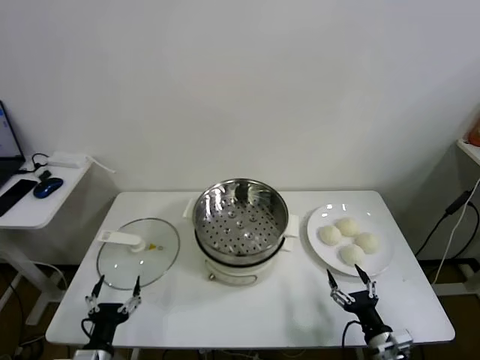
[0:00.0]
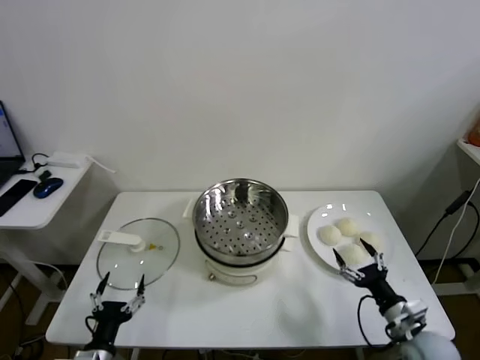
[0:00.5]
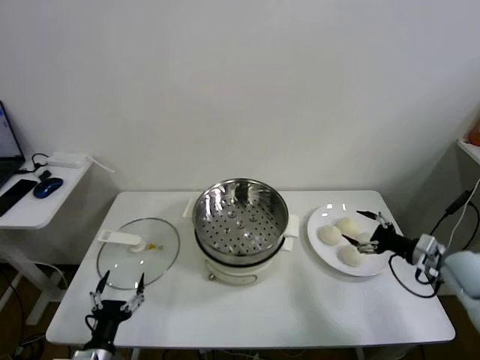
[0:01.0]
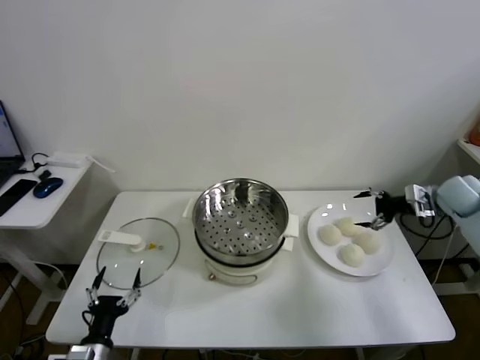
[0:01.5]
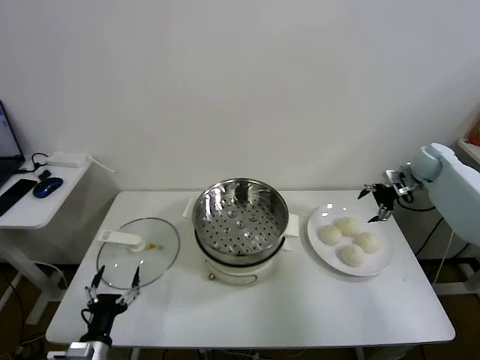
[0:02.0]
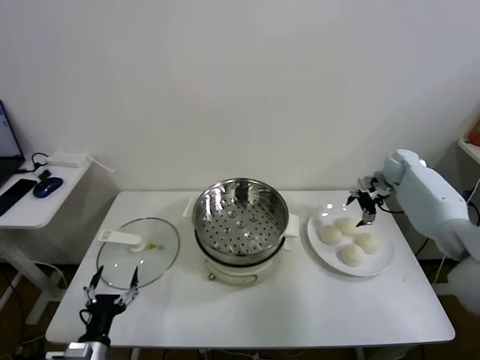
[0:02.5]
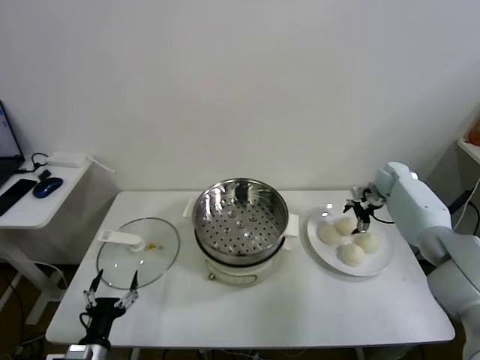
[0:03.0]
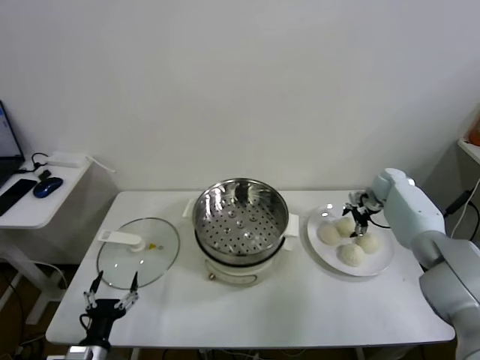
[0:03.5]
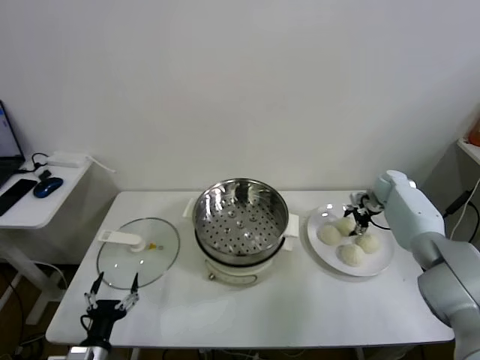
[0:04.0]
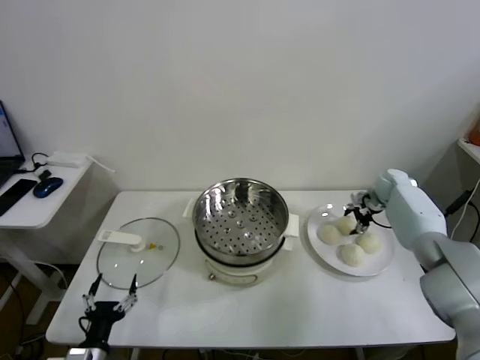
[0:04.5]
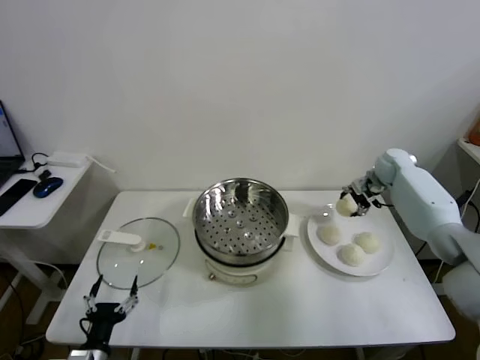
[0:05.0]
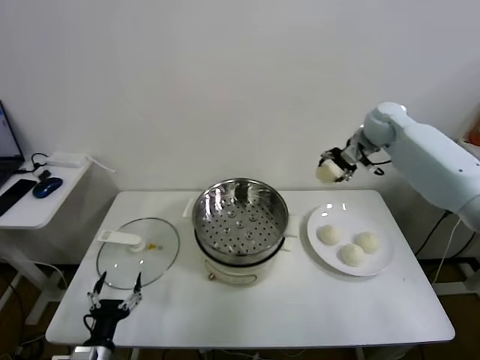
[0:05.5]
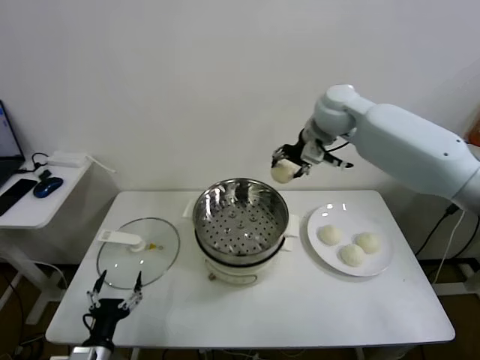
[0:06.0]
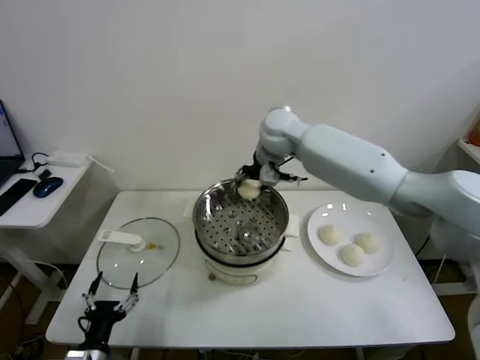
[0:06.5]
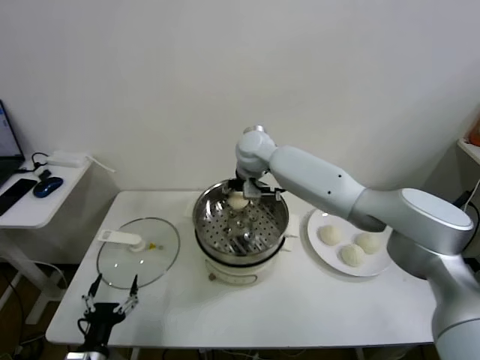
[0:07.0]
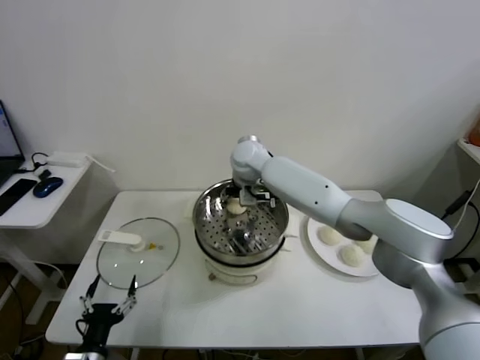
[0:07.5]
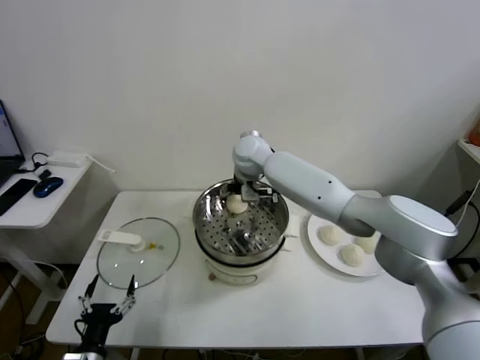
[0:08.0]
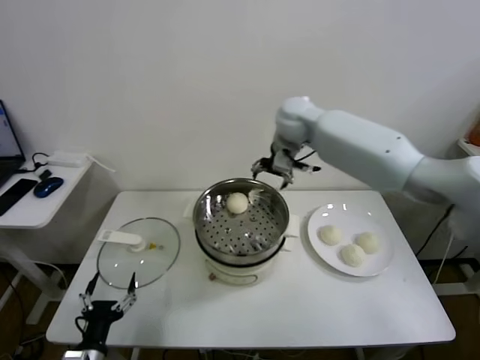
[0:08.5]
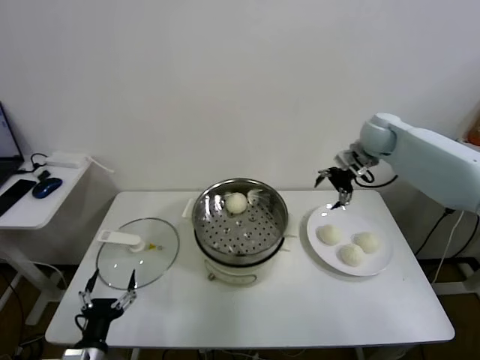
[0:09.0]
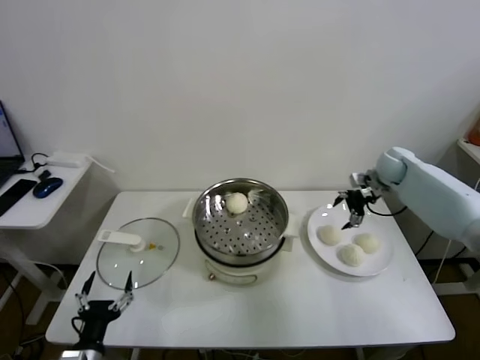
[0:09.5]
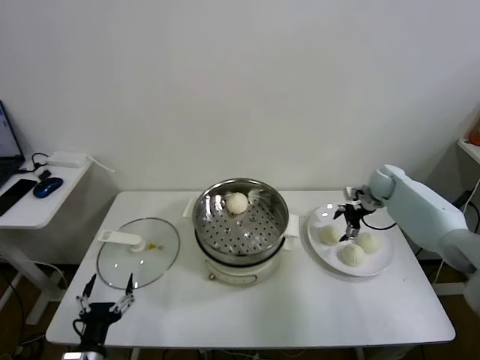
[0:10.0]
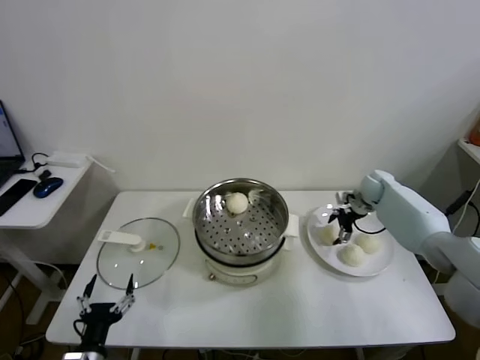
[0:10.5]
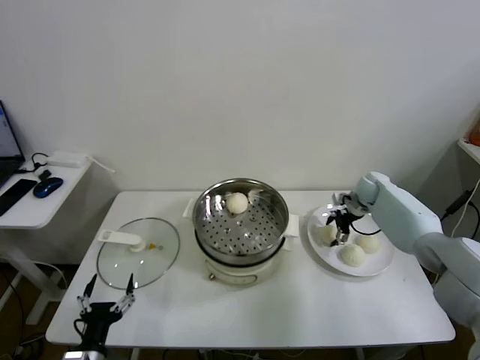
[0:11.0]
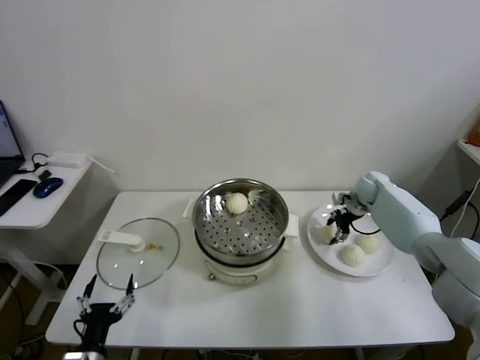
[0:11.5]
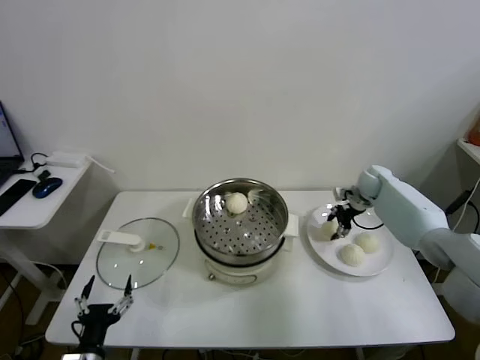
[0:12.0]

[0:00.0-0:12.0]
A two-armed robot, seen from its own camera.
Task of the whole recording: take steamed baozi put them in steamer.
Step, 0:00.0 to 0:04.0: Grasp the baozi in the plate with right gripper.
Step, 0:04.5 to 0:08.0: Place the baozi on the steamer with right gripper.
Step, 0:08.5 to 0:11.0: Grasp the baozi in the plate with right gripper.
0:02.0 to 0:04.0: The right gripper is displaced downward by some 10 cm, and closes.
0:04.0 to 0:06.0: The right gripper moves upward and to the left, about 40 cm.
0:06.0 to 0:08.0: The right gripper goes approximately 20 cm to the left and downward, and opens up.
0:08.0 to 0:10.0: The right gripper heads to the right, covering approximately 40 cm.
0:10.0 to 0:12.0: The right gripper closes its fingers.

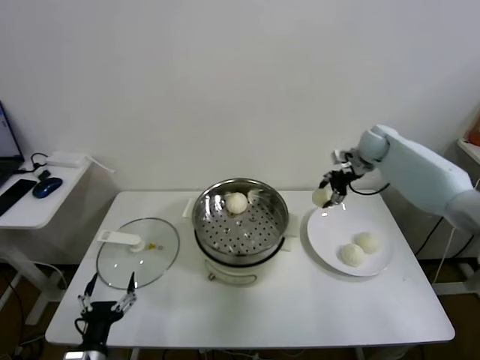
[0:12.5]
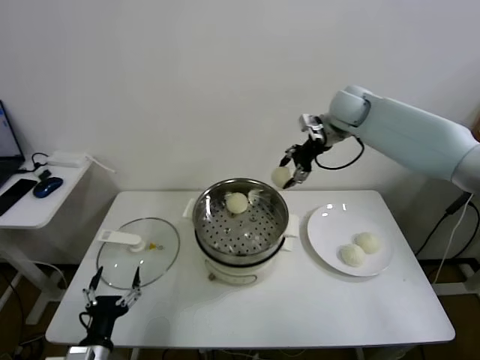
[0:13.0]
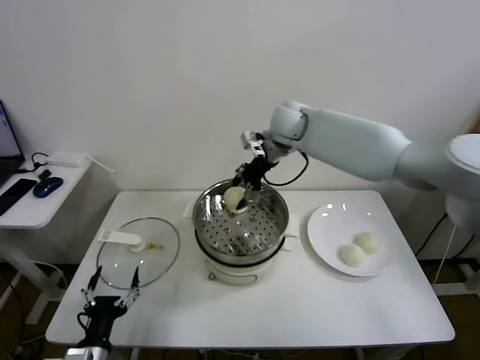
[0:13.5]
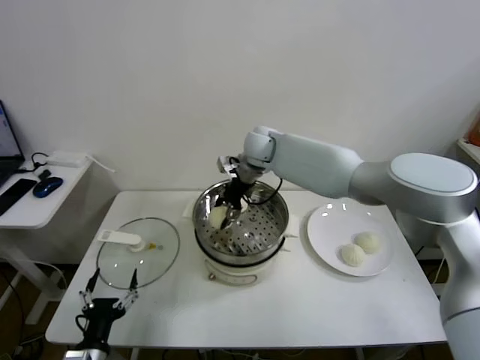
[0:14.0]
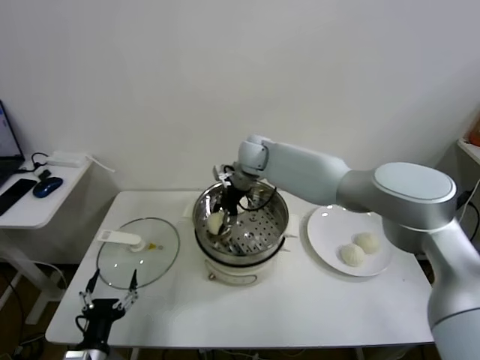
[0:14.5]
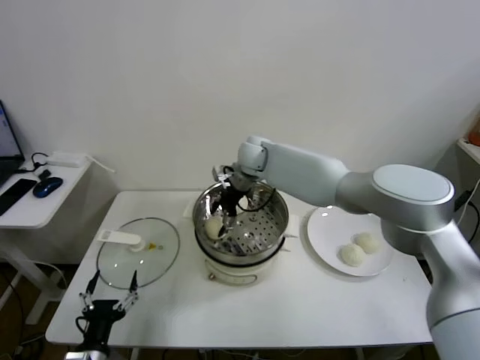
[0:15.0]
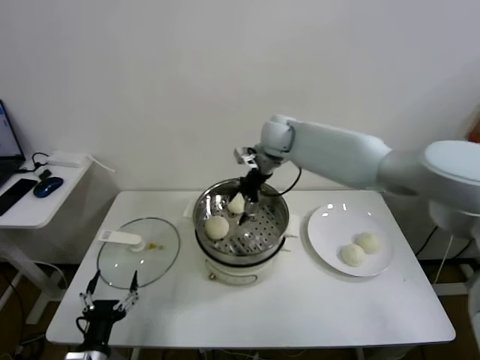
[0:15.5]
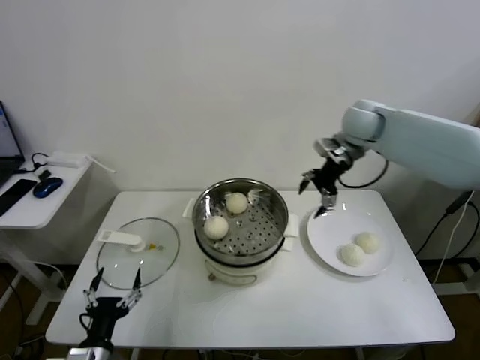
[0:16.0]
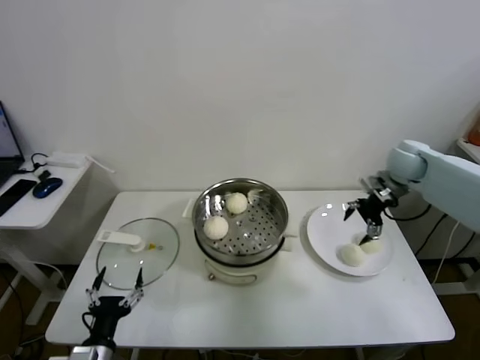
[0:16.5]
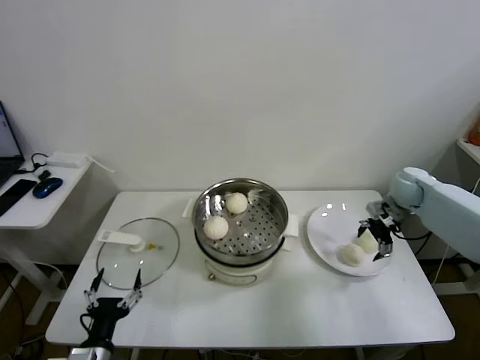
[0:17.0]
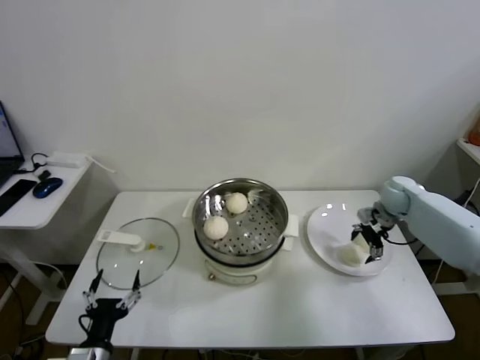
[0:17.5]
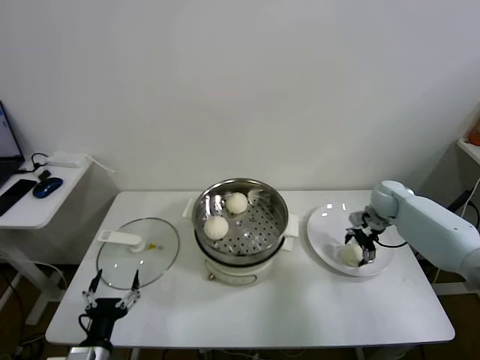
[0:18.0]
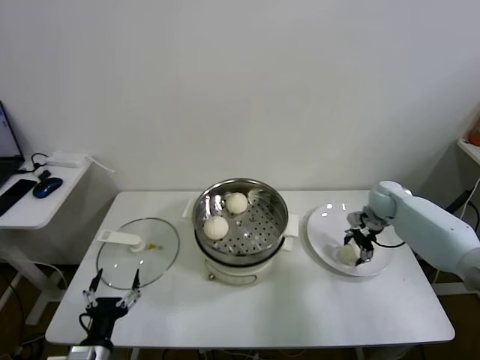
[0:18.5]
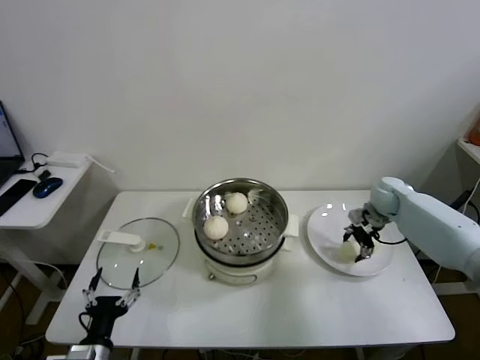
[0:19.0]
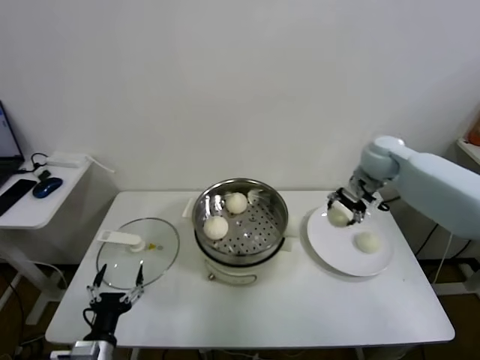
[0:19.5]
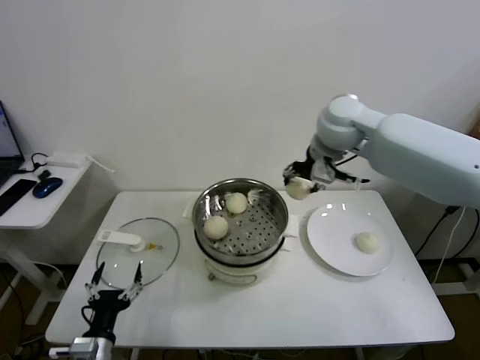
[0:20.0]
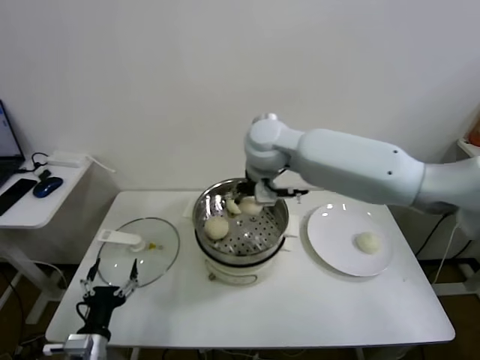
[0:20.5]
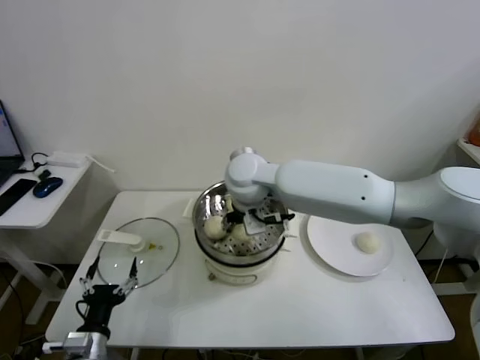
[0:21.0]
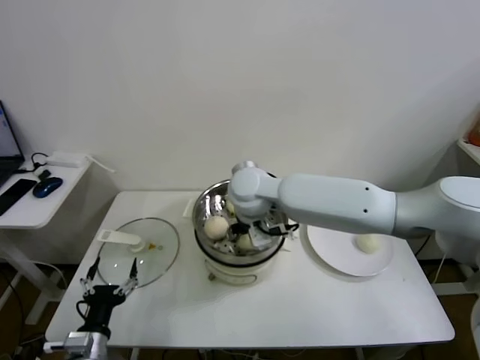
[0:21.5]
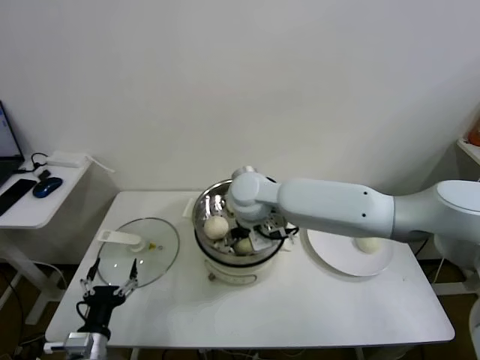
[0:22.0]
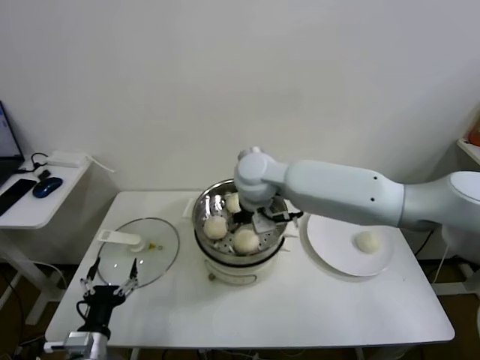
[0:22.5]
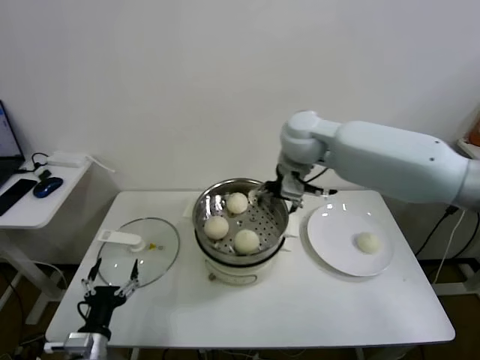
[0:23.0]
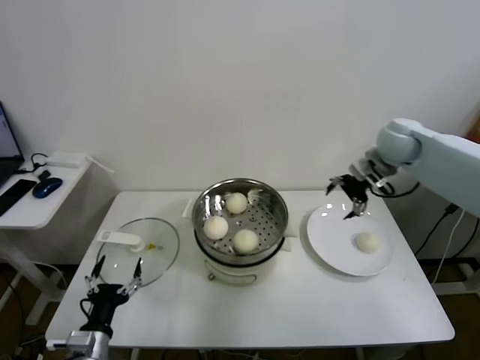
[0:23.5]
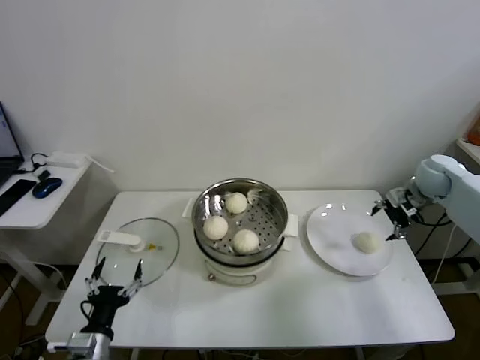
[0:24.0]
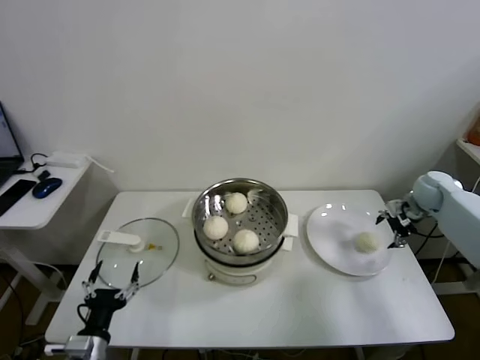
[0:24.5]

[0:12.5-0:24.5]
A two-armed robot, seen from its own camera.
Task of the whole recording: take steamed baozi put them in steamer.
Step, 0:12.5 to 0:15.0: Place the baozi on the steamer with right gripper.
Step, 0:15.5 to 0:18.5: Grasp the baozi in the plate with right gripper.
Step, 0:19.0 to 0:22.0: Place the baozi on the steamer with right gripper.
0:12.5 to 0:14.5: The right gripper goes some 30 cm to the left.
0:14.5 to 0:16.5: The right gripper travels to the right by some 35 cm, and opens up.
0:16.5 to 0:18.5: The right gripper travels downward by some 15 cm, and closes its fingers.
0:18.5 to 0:20.5: The right gripper shifts roughly 40 cm to the left and upward.
0:20.5 to 0:22.5: The right gripper shifts approximately 5 cm downward, and opens up.
0:22.5 to 0:24.5: The right gripper is displaced to the right by some 50 cm.

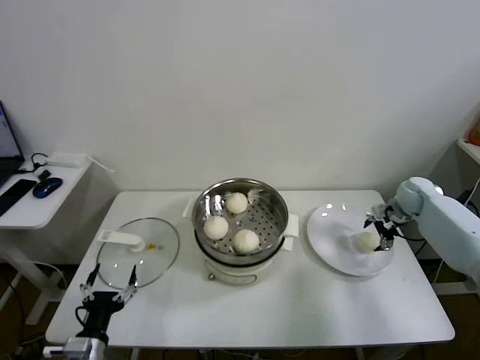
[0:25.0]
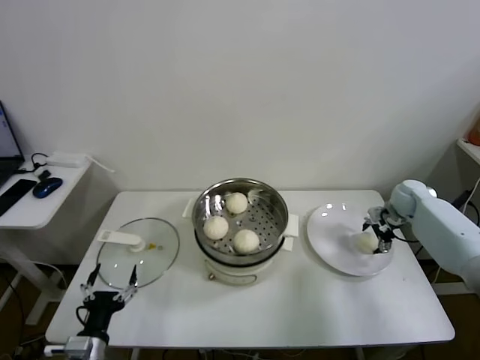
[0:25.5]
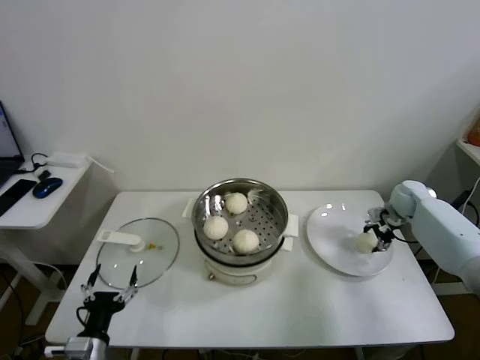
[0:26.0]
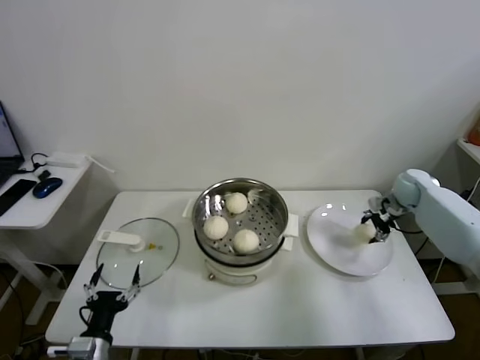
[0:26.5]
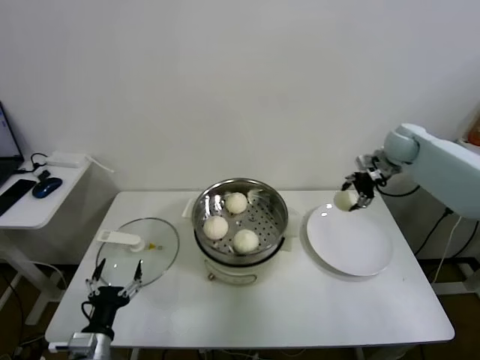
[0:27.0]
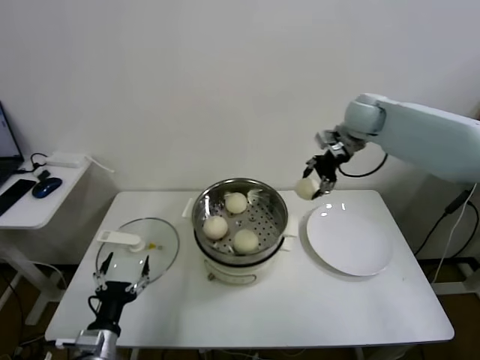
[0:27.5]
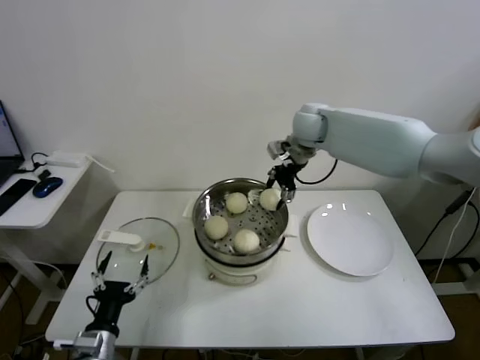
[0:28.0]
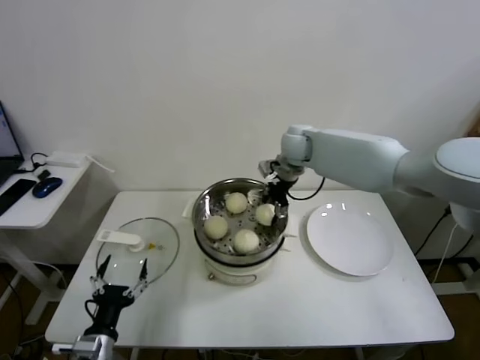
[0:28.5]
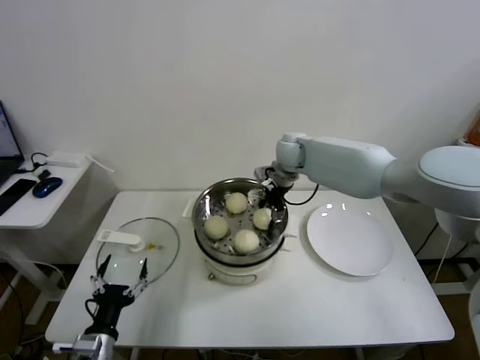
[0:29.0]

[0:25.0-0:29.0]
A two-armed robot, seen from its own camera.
Task of the whole recording: take steamed baozi put them in steamer.
0:25.0 to 0:27.0: The right gripper heads upward and to the left, covering approximately 15 cm, and closes its fingers.
0:27.0 to 0:29.0: The right gripper is displaced to the left by some 25 cm.
